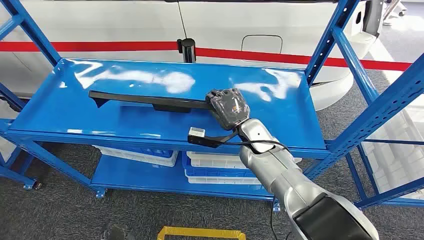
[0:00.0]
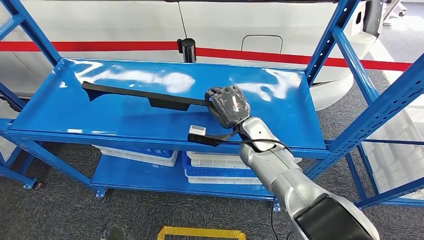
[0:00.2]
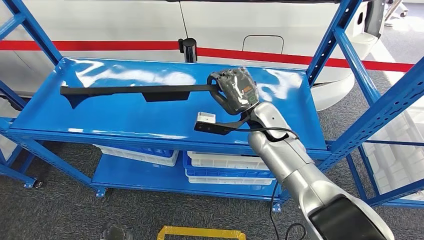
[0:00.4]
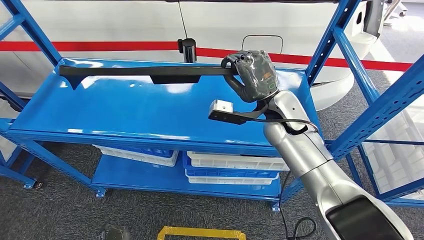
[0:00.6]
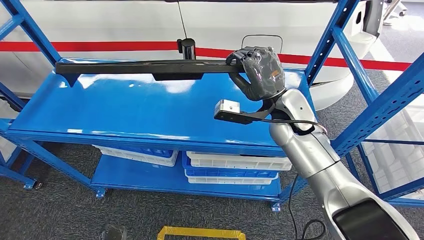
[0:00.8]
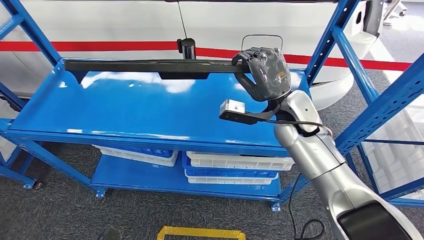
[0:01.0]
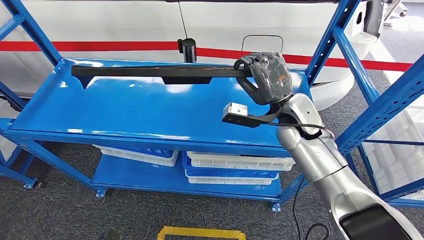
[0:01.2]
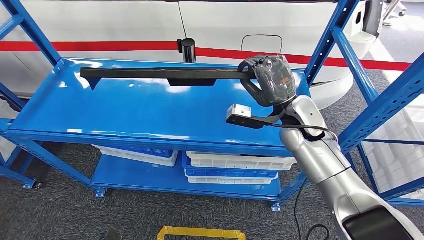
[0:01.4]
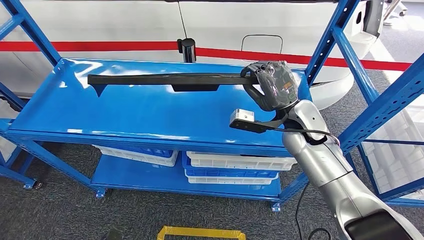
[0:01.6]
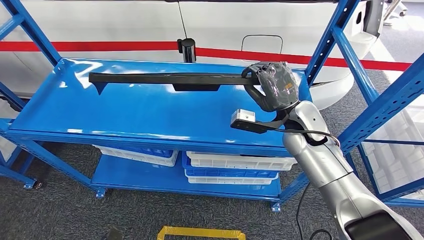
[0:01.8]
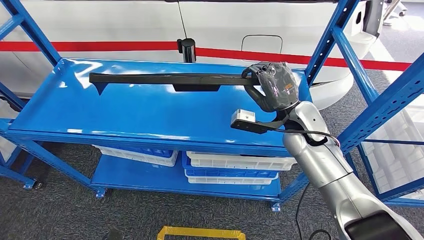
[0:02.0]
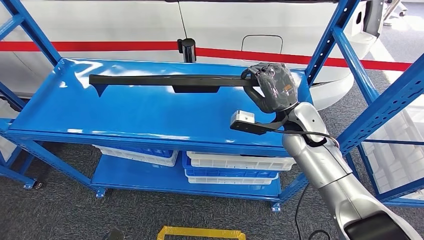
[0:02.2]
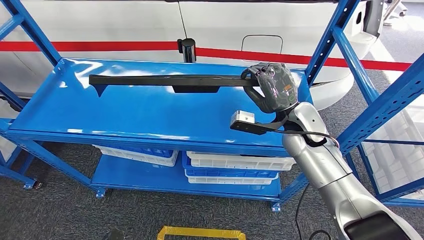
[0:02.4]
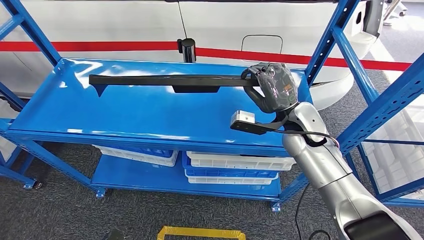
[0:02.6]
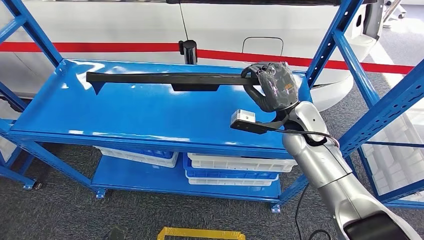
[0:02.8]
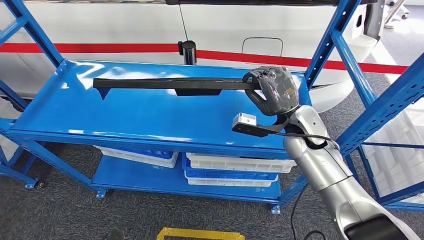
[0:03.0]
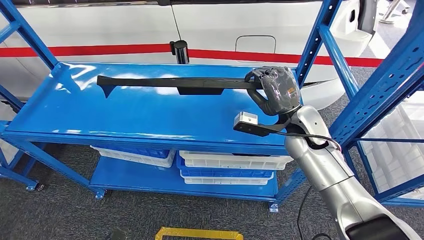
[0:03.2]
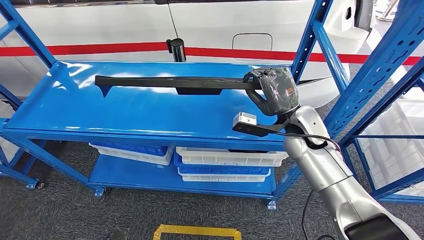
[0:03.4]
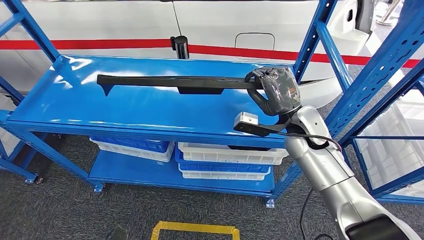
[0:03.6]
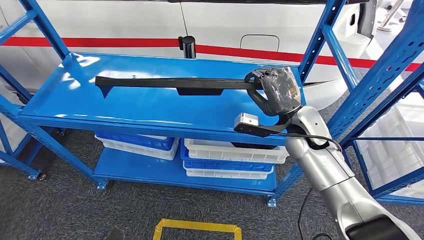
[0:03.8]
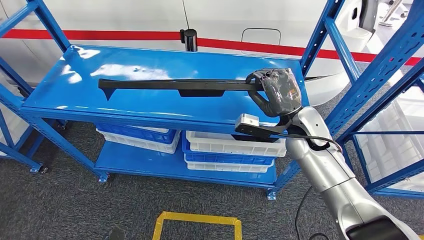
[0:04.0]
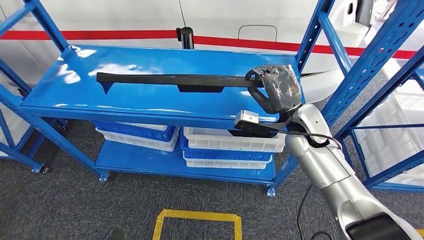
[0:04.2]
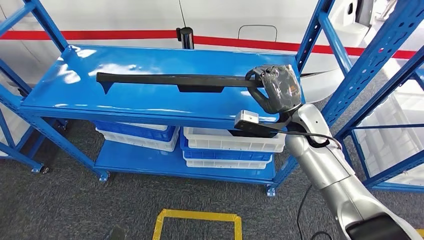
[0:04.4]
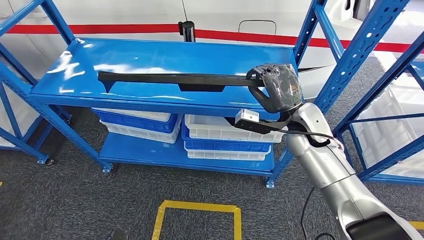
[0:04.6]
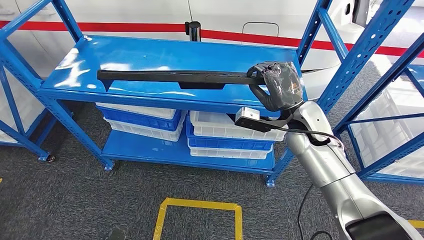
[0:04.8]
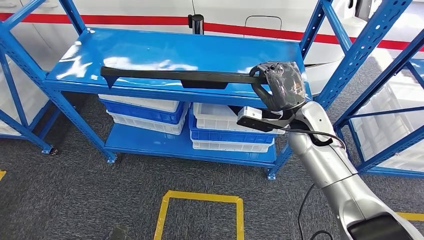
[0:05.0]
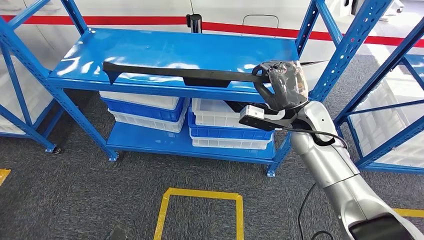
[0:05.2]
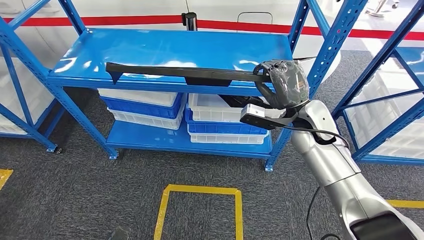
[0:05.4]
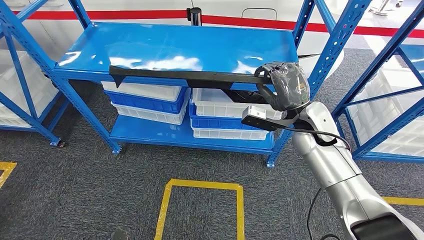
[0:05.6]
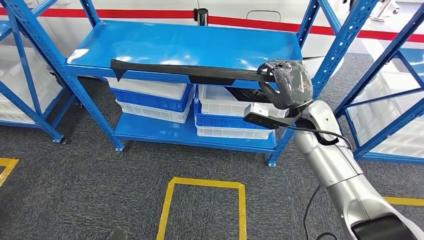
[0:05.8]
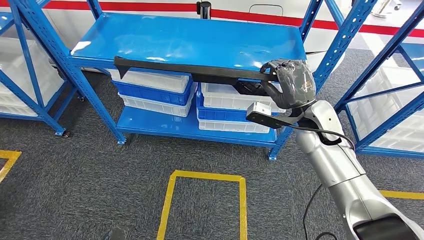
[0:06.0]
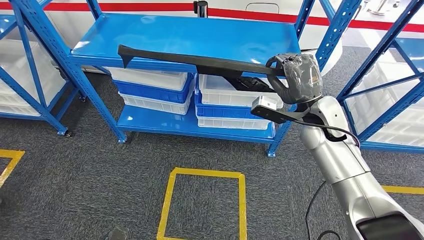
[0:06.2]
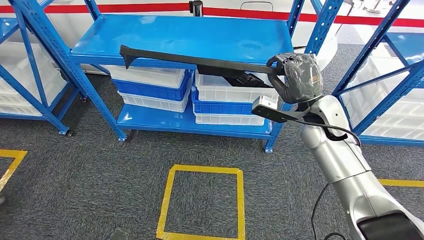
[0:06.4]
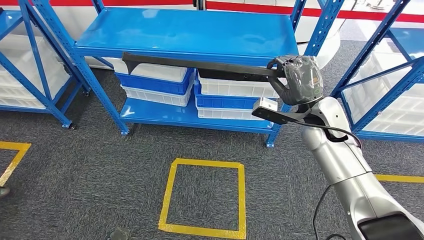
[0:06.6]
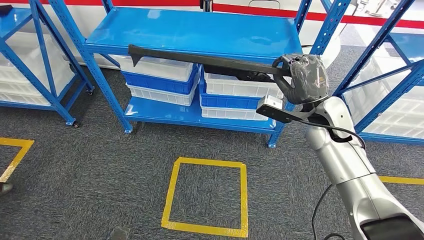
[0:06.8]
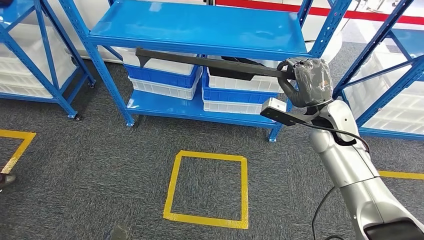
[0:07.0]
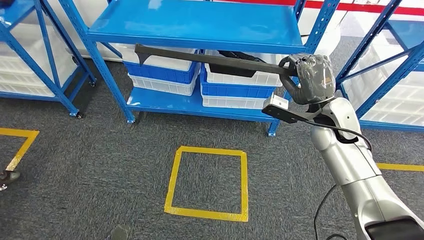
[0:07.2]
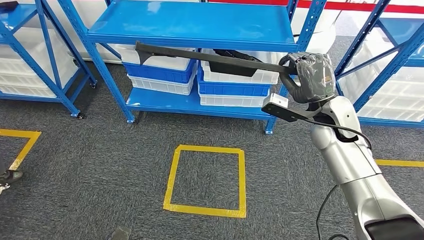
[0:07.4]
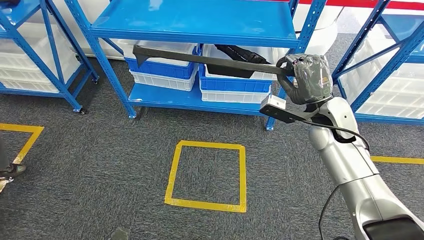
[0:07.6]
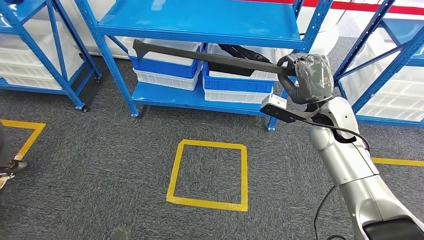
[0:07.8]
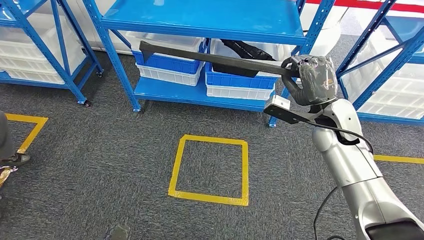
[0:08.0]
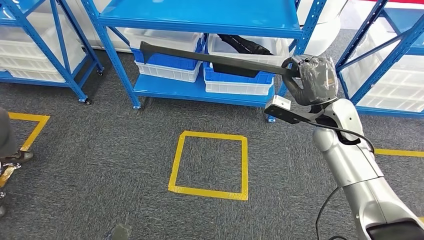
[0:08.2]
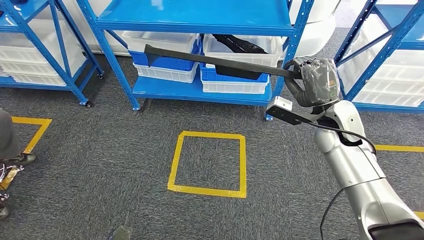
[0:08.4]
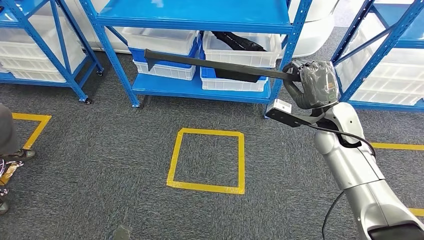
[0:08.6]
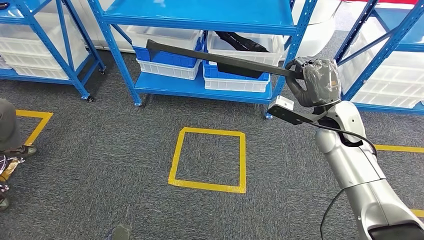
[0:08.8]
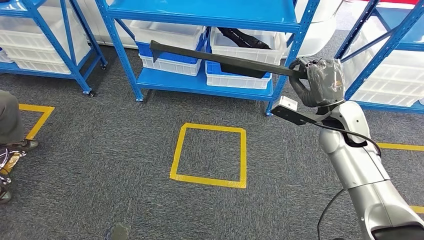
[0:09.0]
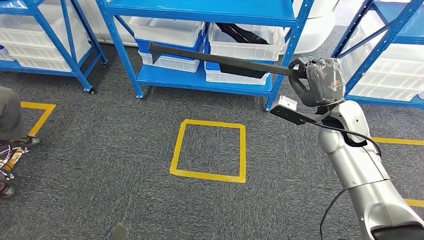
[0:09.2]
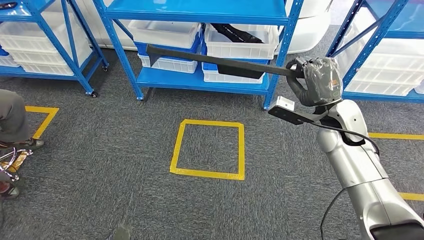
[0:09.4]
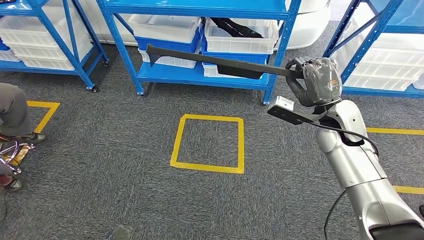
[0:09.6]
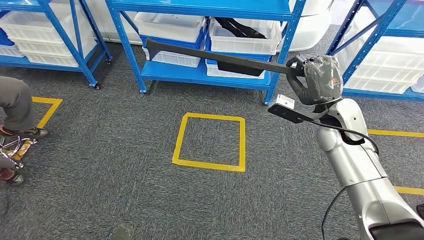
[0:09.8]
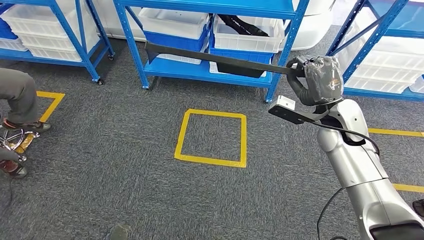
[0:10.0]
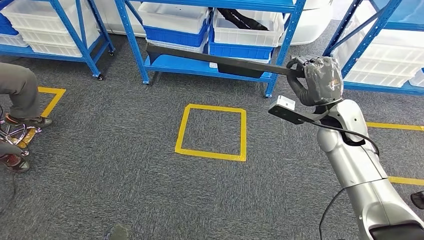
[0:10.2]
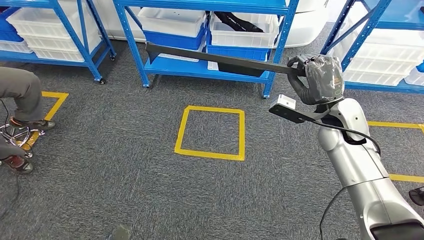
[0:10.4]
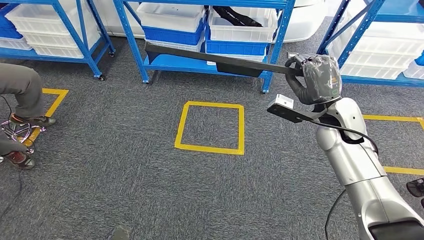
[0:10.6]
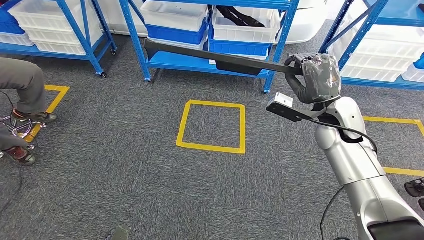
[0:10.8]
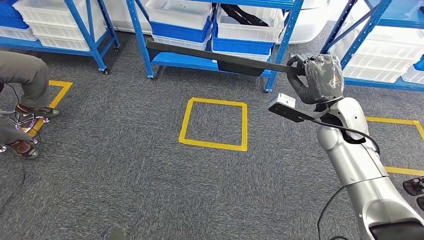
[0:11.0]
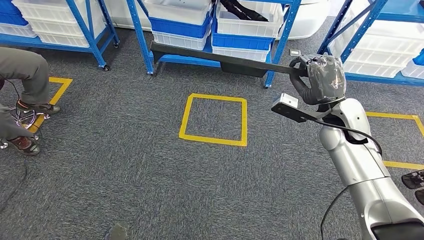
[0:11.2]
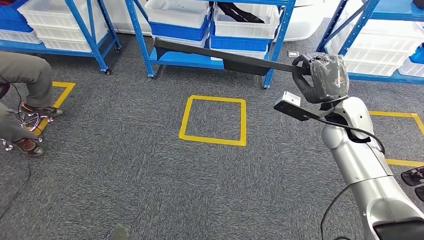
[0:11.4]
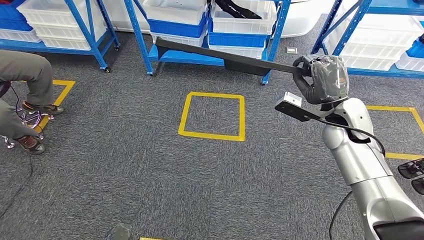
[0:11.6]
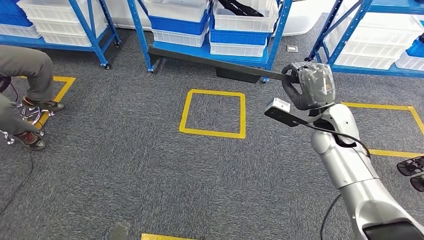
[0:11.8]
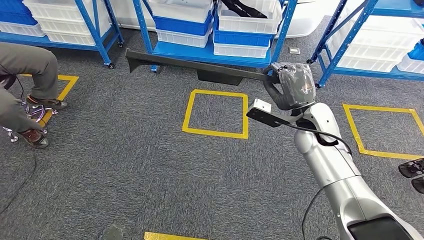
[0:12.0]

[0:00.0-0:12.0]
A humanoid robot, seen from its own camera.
Step, 0:00.0 to 0:07.2: Pick up the large material from the shelf.

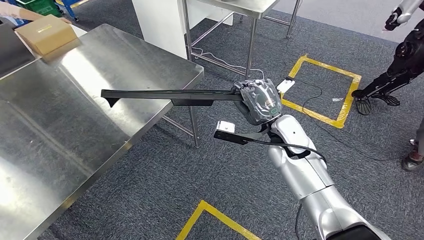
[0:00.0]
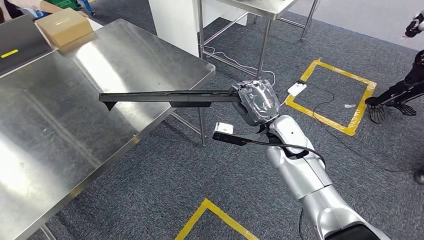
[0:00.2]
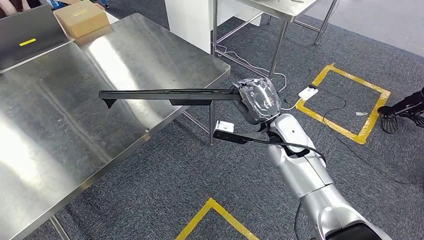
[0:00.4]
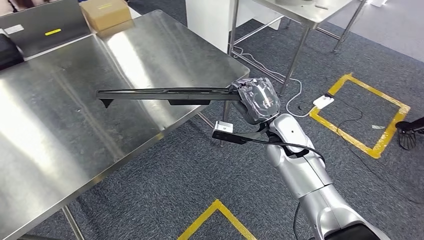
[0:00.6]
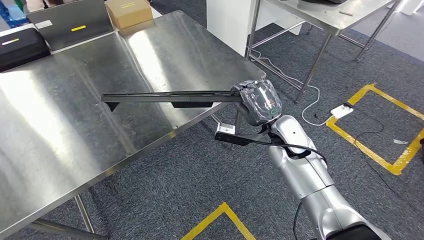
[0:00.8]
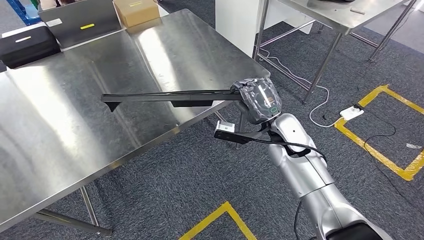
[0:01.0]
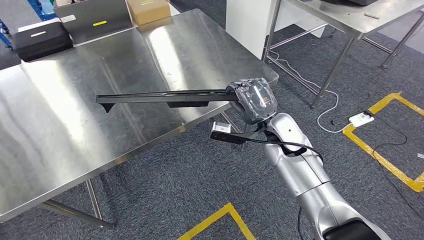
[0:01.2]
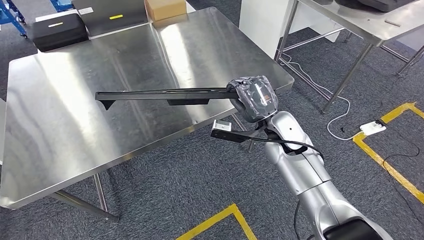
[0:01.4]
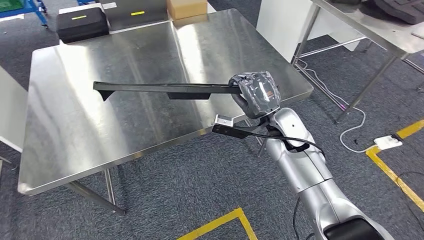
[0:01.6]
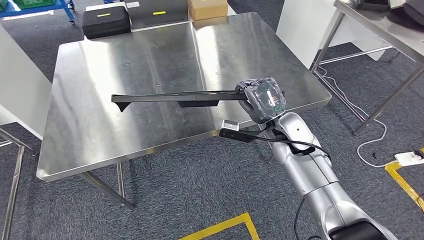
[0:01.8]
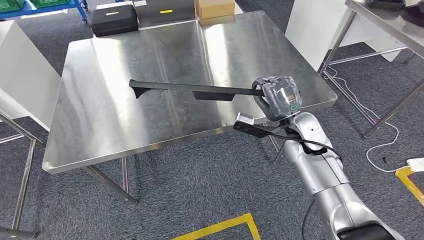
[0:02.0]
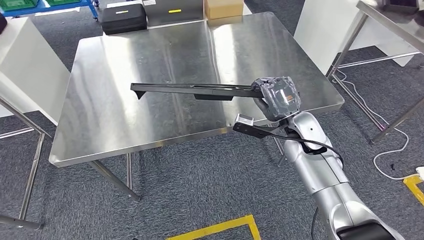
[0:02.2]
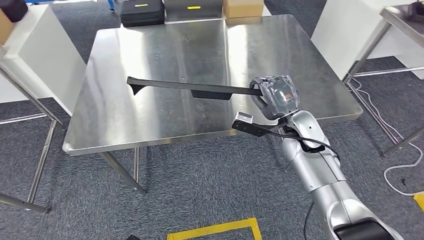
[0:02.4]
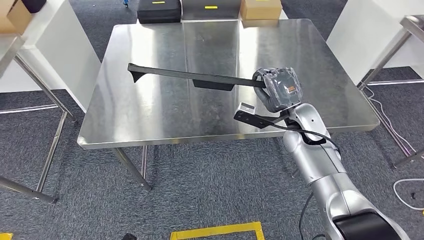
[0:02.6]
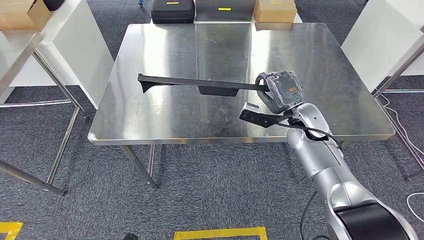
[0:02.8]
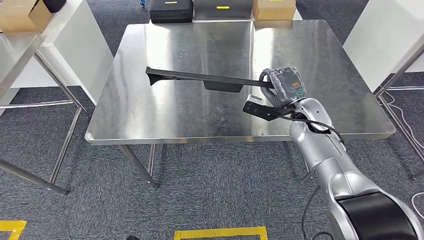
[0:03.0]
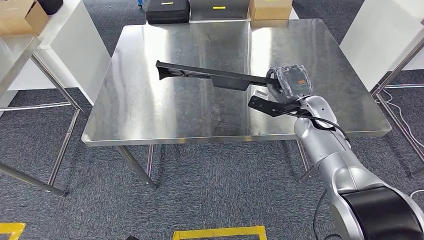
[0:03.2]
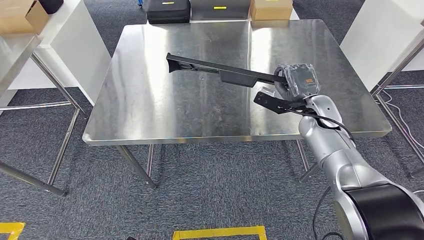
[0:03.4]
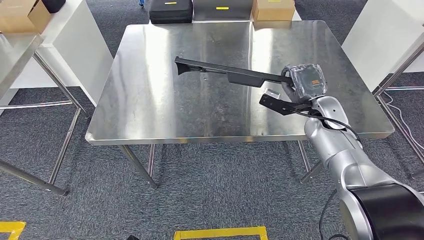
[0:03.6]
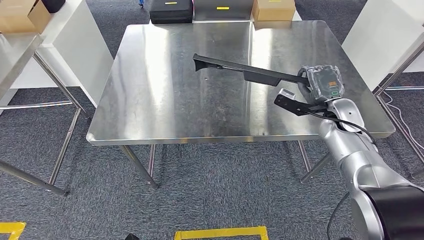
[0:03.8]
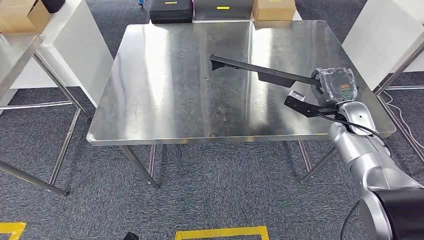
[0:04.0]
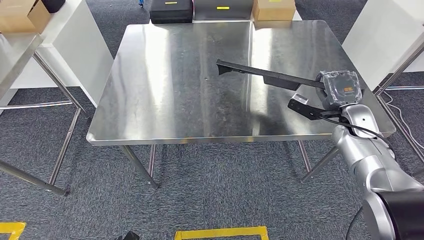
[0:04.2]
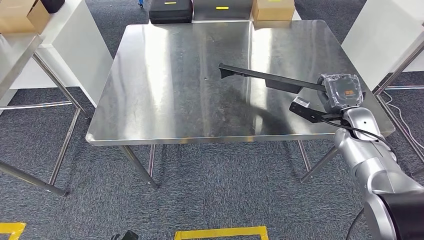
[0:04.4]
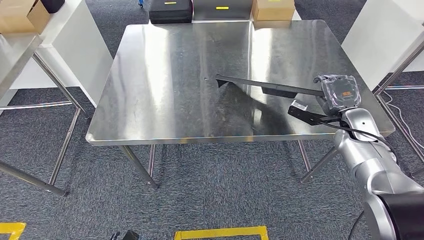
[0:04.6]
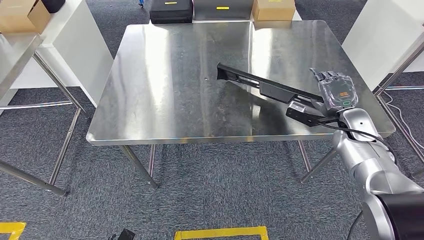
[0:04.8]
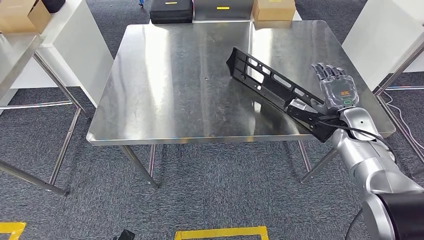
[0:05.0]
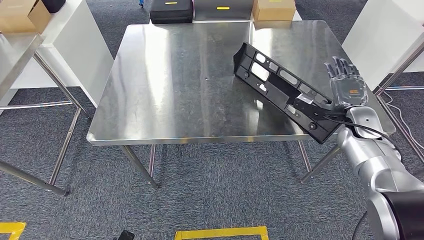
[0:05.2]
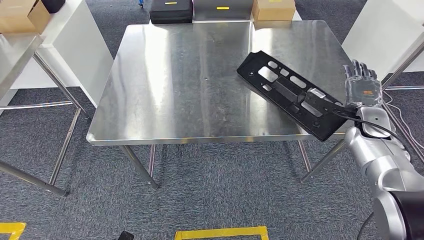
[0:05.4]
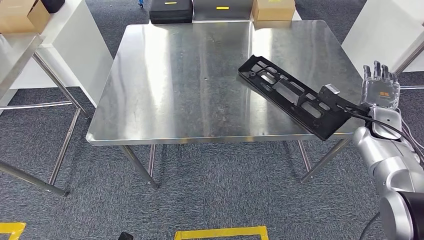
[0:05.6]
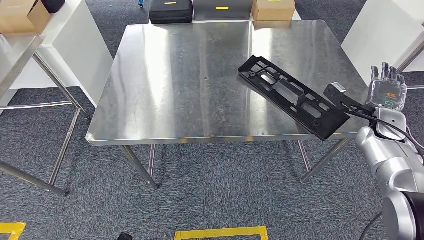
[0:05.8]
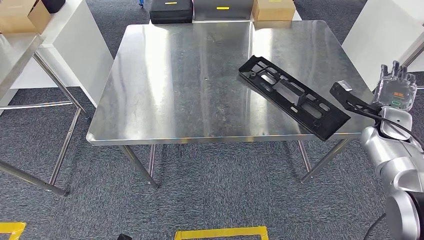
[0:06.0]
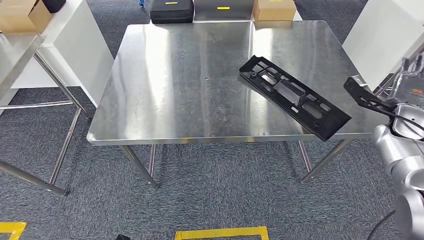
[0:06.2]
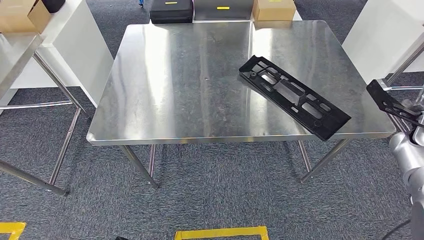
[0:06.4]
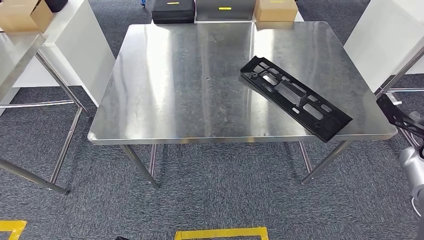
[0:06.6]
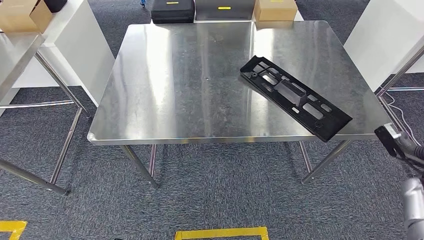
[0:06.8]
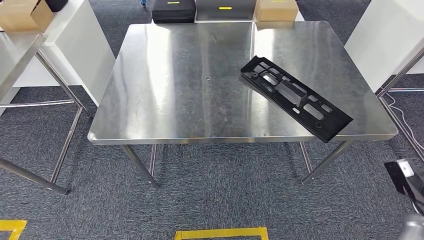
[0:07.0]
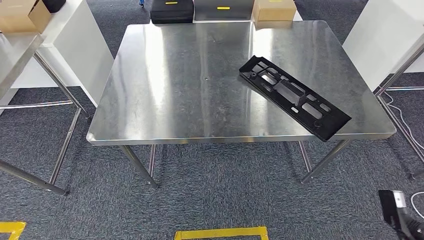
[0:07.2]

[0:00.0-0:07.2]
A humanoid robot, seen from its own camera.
0:04.4 to 0:05.8: The right hand heads to the right, covering about 5 cm.
0:05.8 to 0:07.2: The right hand shifts roughly 30 cm backward and downward.
